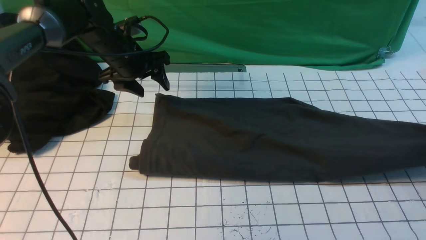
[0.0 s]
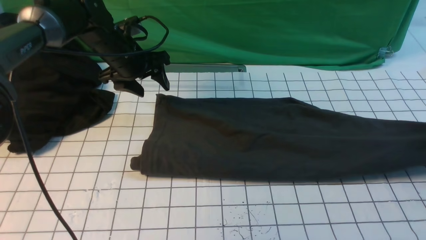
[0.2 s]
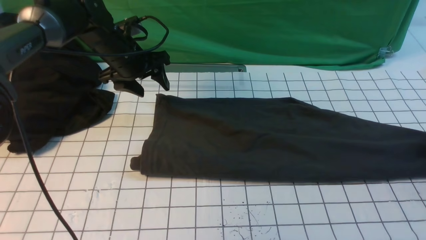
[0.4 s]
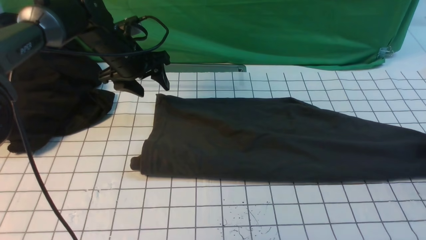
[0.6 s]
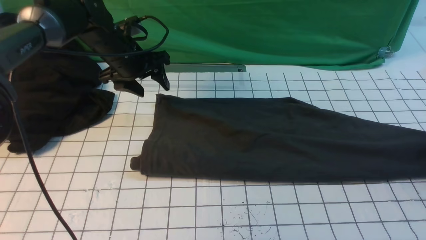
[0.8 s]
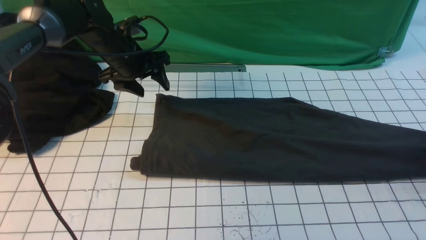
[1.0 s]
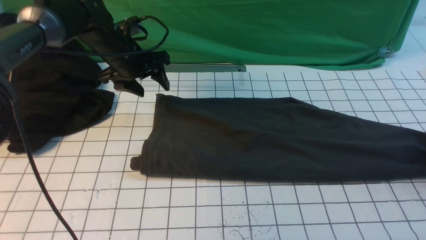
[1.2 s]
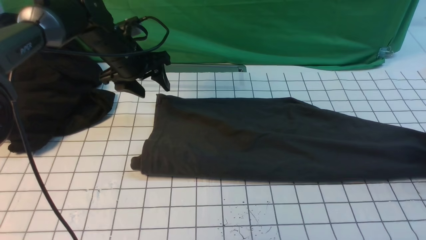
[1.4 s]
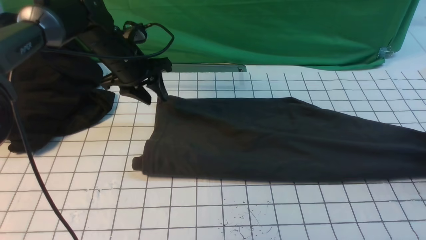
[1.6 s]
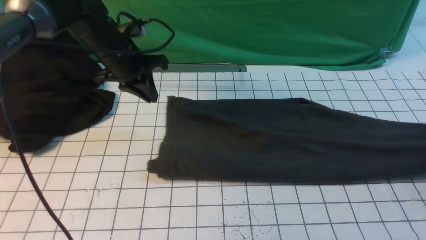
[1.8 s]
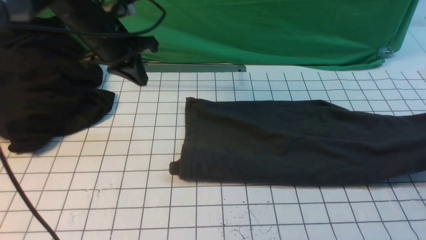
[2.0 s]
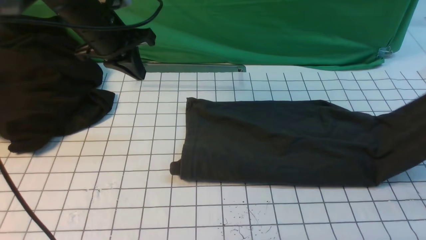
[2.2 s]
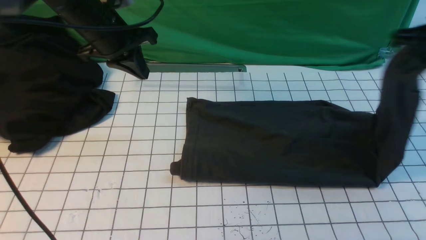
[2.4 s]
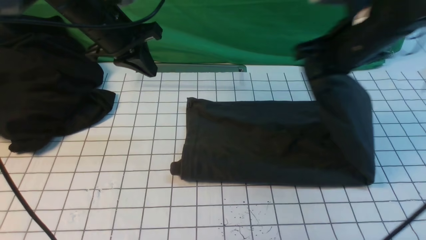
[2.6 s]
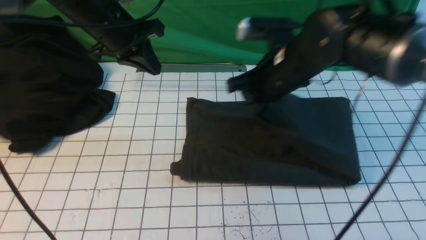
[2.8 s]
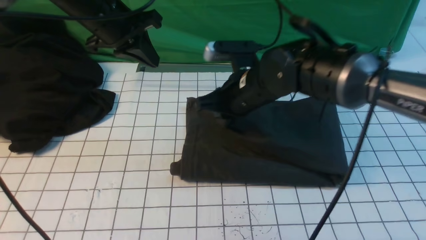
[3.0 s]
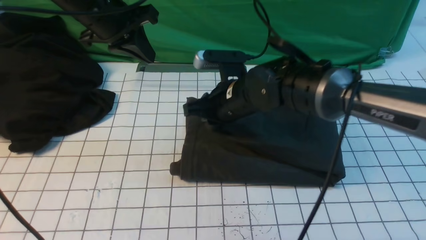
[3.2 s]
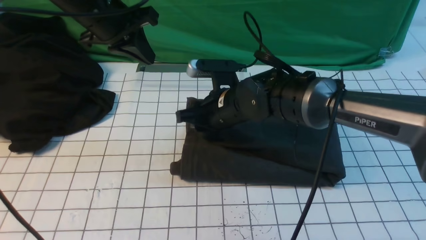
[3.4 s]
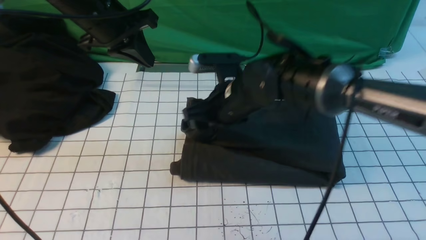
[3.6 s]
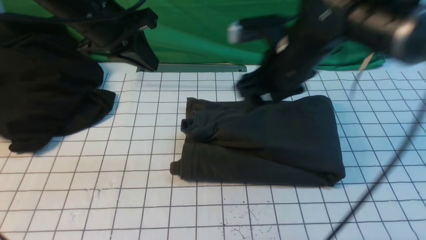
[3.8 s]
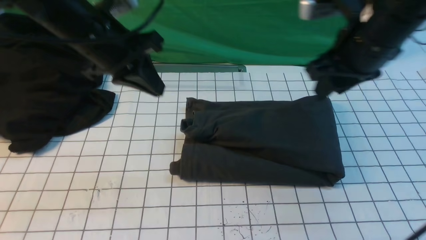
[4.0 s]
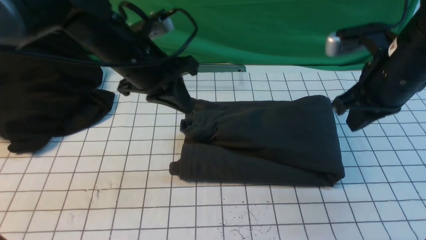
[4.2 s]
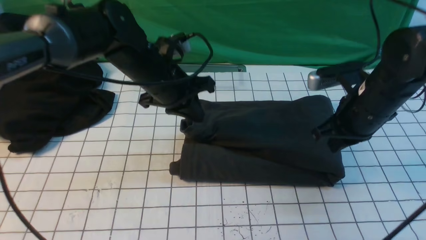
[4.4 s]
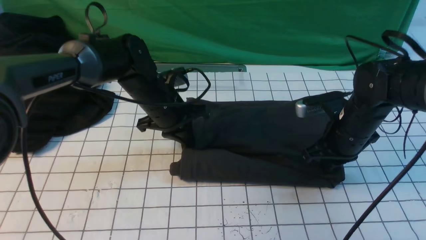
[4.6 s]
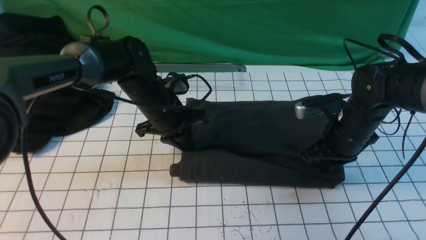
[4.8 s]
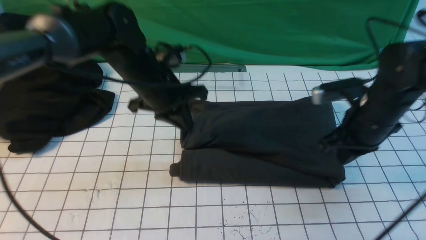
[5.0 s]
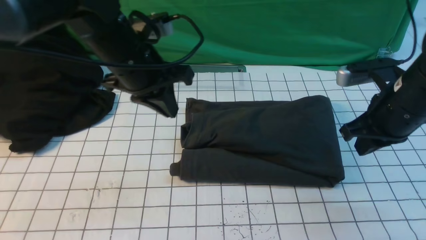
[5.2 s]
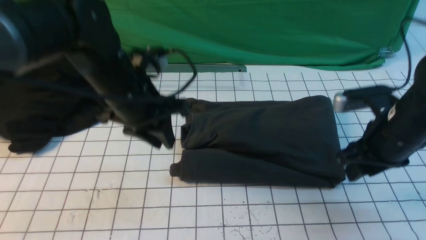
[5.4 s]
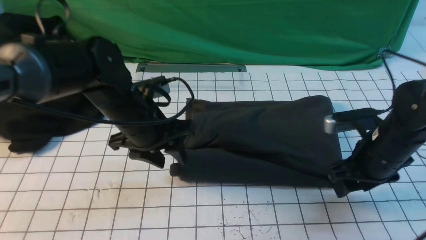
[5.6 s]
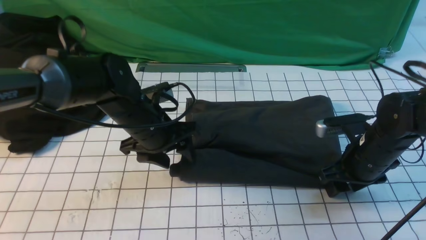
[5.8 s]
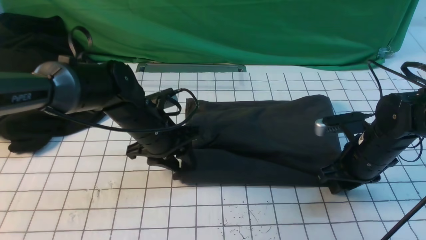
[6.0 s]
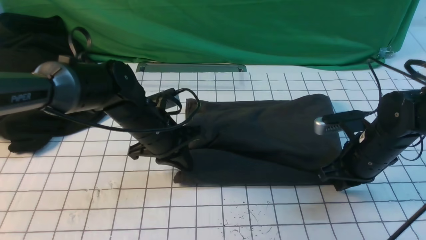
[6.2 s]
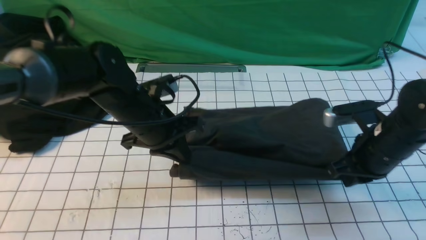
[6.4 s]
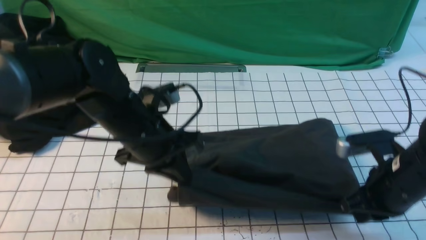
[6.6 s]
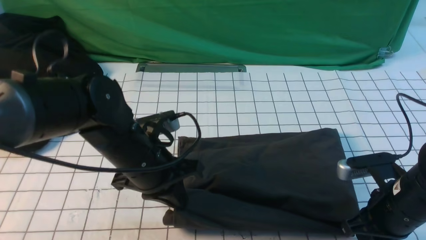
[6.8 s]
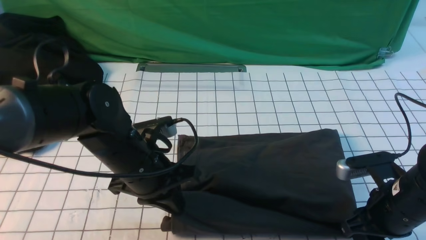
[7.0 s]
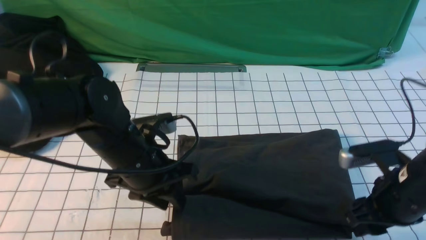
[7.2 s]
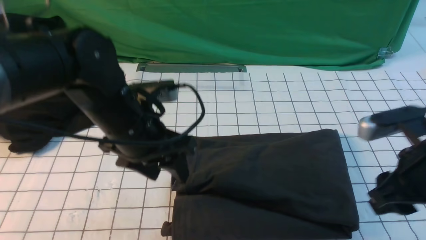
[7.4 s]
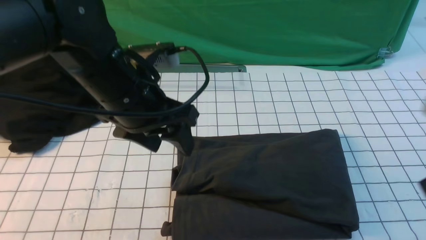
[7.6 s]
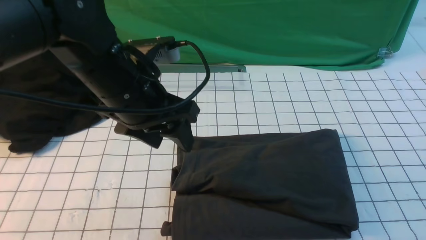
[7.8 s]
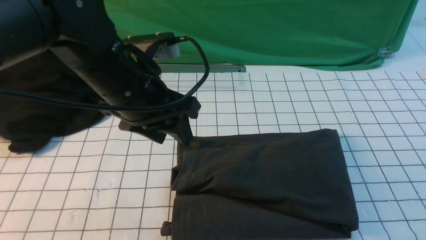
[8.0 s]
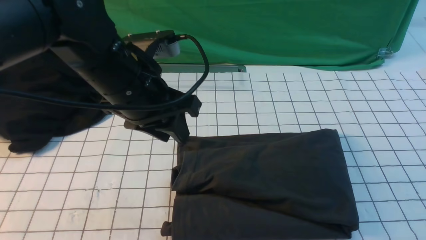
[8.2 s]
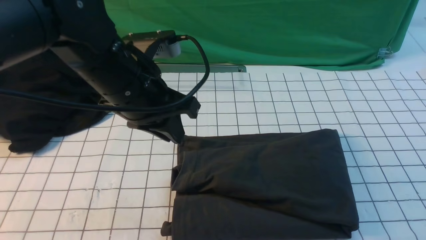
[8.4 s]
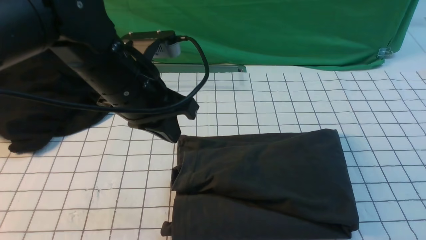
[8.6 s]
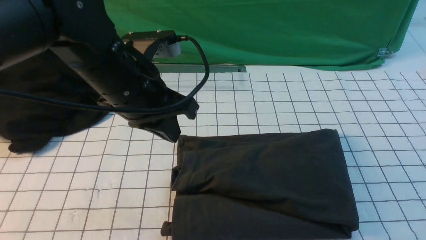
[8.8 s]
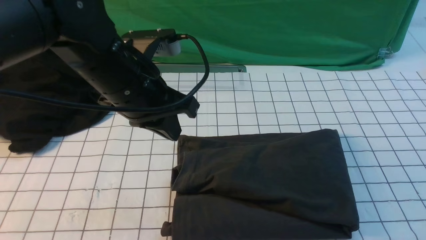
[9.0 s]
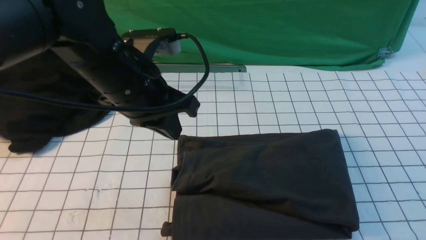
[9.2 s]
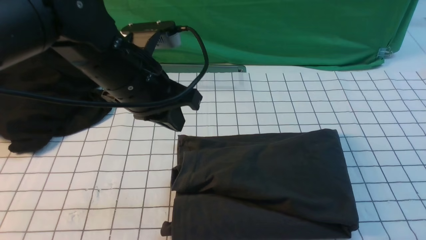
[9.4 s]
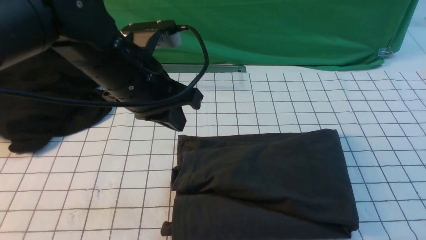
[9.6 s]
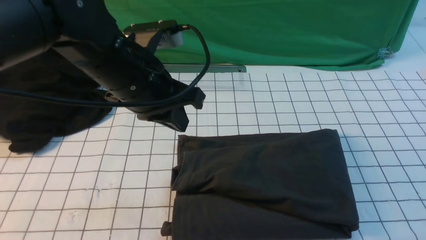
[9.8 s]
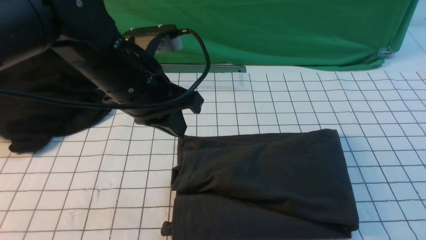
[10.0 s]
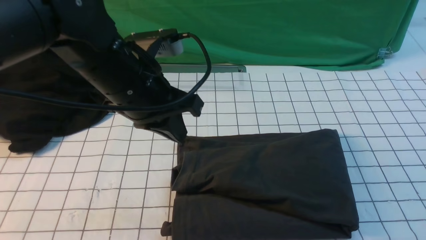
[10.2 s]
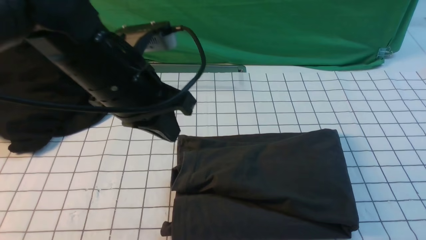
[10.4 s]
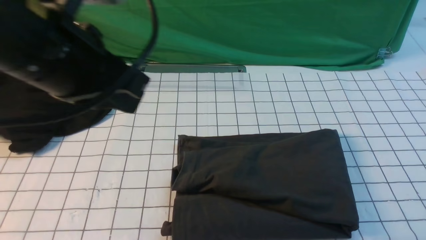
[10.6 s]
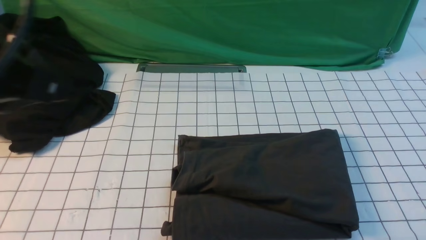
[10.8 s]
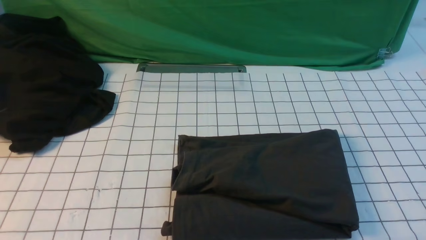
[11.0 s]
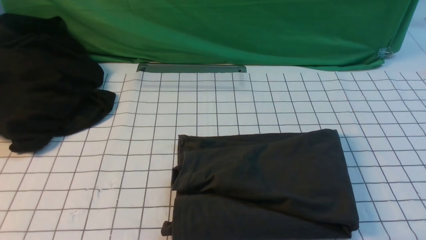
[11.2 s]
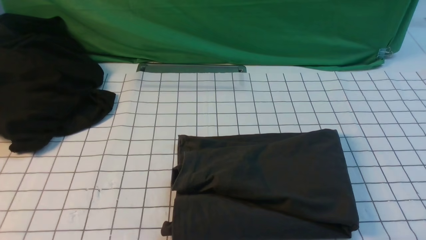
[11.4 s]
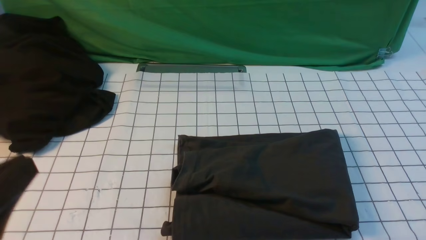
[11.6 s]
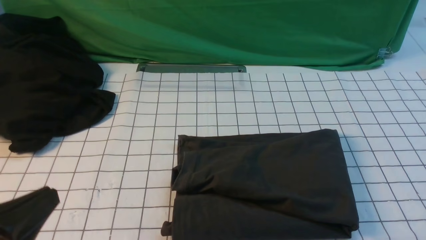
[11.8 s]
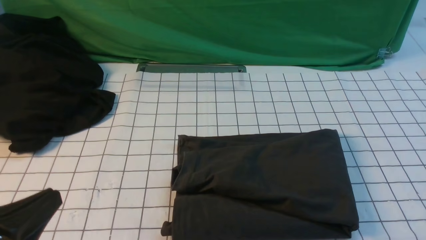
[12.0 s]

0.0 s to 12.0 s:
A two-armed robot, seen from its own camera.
Step, 0.0 to 2.0 s: use the right arm to clamp the right edge of the fabric.
Step, 2.2 to 3.8 s: use the right arm to drag the right edge of the fabric to the left and folds it over the left edge.
0.0 to 1.6 s: The left gripper closes, while the right gripper opens, then closes again.
1.6 to 3.0 s: The right gripper is displaced to the left by some 40 cm. Meanwhile the left gripper is displaced upward by roughly 10 cm, and closes.
3.0 to 4.4 s: The left gripper heads downward and to the right, covering approximately 10 cm. The right gripper travels to the right by about 15 cm, and opens and closes again.
4.4 to 6.0 s: The right gripper swings up and down, about 10 cm each way, with 2 reversals, and opens up. The left gripper swings up and down, about 10 cm each way, with 2 reversals, and opens up.
6.0 to 7.6 s: The right gripper goes some 25 cm upward and backward. Meanwhile the left gripper moves upward and backward, about 15 cm, and opens its fingers.
7.6 to 9.0 s: The left gripper closes. The right gripper shifts approximately 10 cm backward.
9.0 to 10.4 s: The left gripper shifts by some 5 cm; the right gripper heads downward, covering about 15 cm.
10.4 to 12.0 s: The left gripper moves backward, downward and to the left, approximately 25 cm.

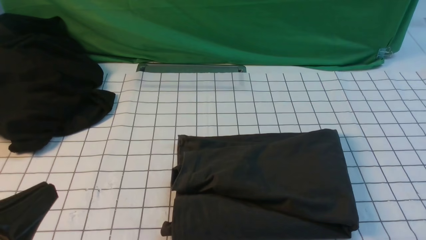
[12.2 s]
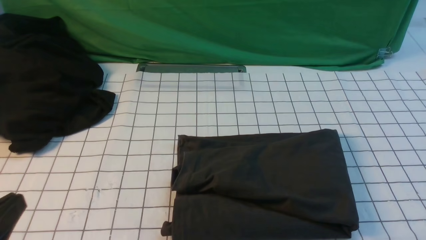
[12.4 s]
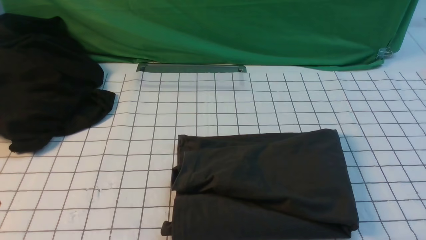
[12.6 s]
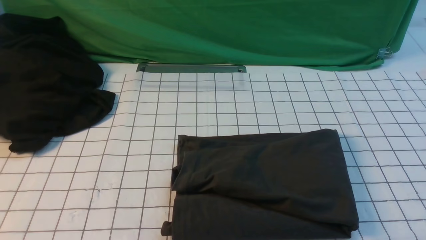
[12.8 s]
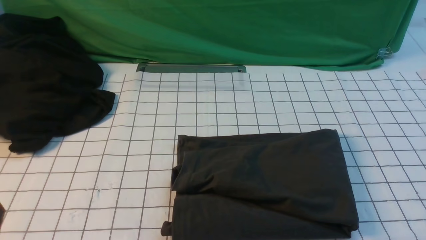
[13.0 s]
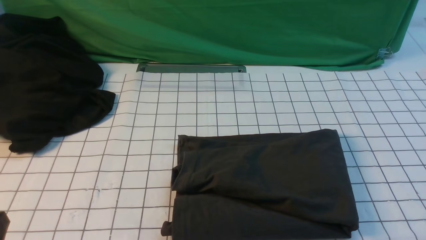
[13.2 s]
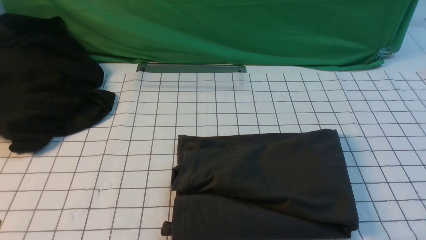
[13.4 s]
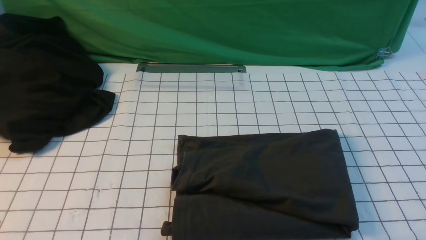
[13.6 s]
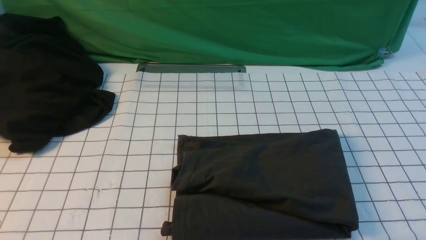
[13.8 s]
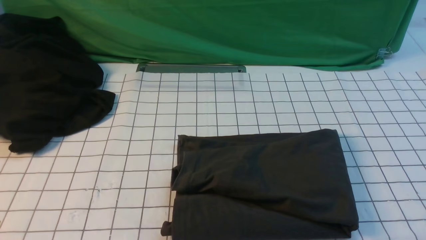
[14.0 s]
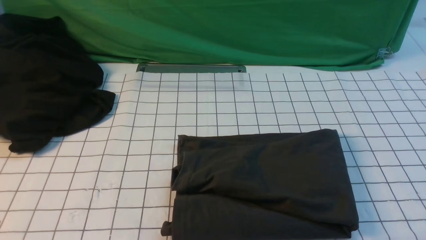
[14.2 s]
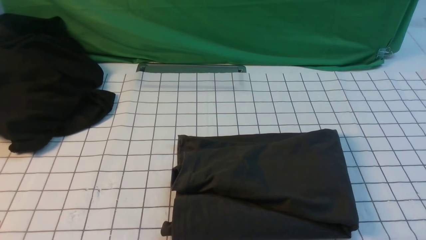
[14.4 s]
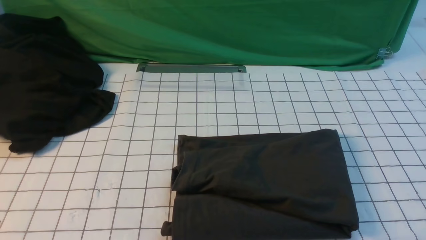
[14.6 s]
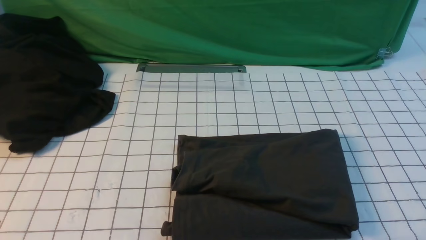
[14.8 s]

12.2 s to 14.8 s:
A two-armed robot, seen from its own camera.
12.2 to 13.4 s: The left gripper is displaced downward by about 5 cm.
13.4 to 14.8 s: Both grippers stay put.
